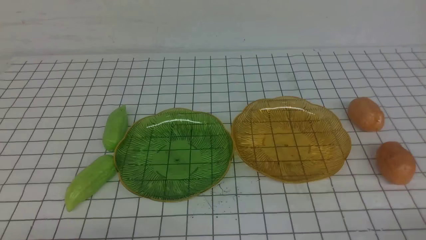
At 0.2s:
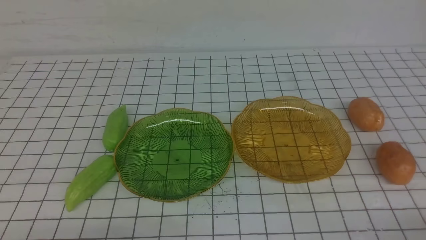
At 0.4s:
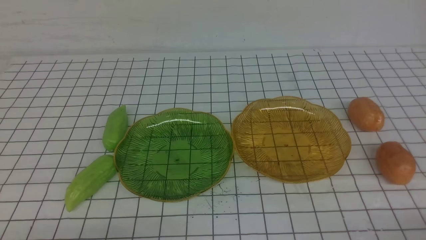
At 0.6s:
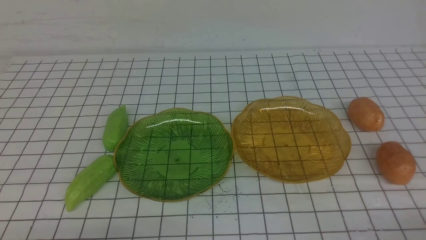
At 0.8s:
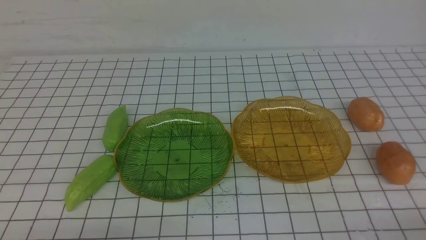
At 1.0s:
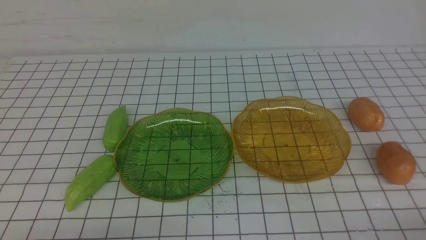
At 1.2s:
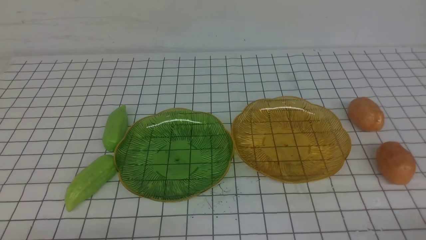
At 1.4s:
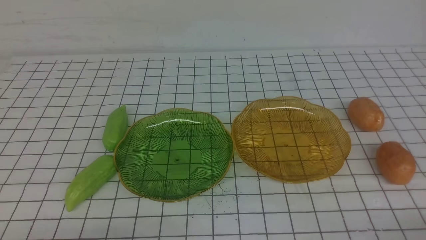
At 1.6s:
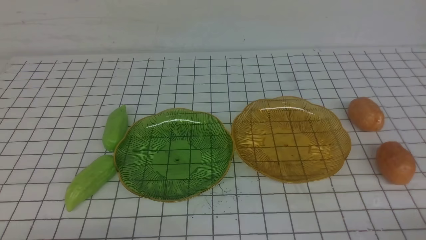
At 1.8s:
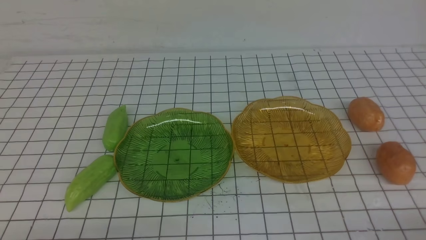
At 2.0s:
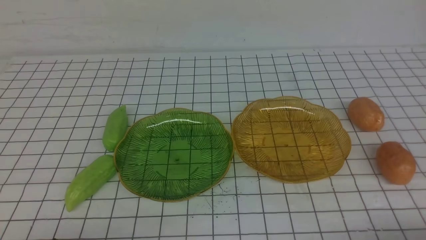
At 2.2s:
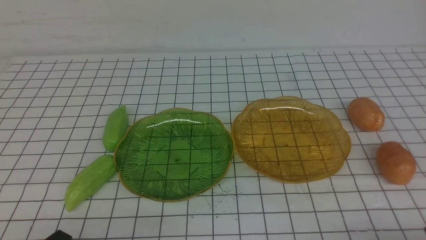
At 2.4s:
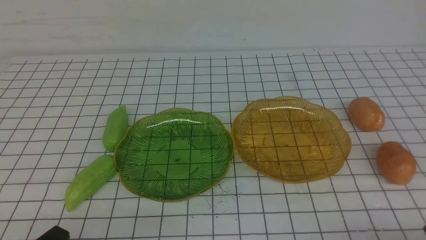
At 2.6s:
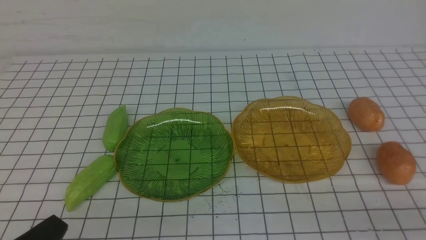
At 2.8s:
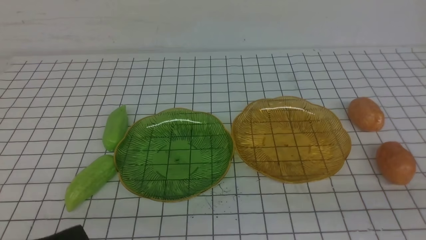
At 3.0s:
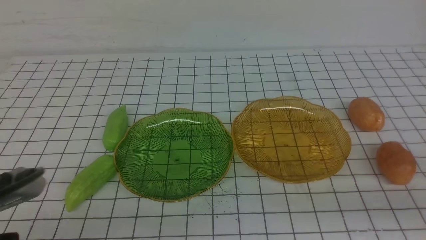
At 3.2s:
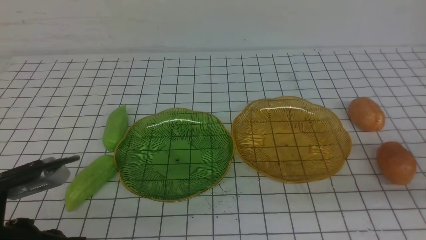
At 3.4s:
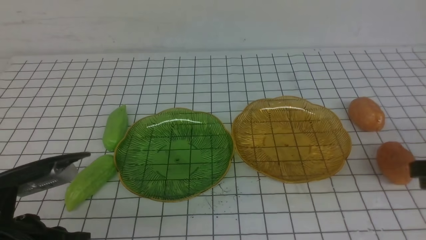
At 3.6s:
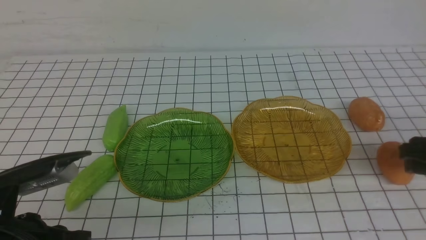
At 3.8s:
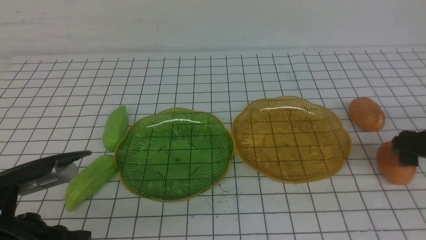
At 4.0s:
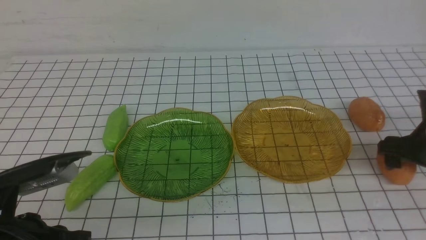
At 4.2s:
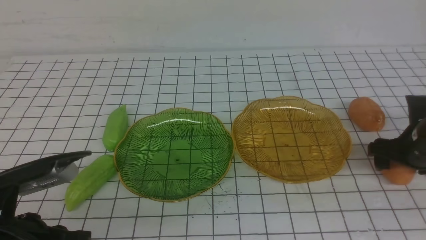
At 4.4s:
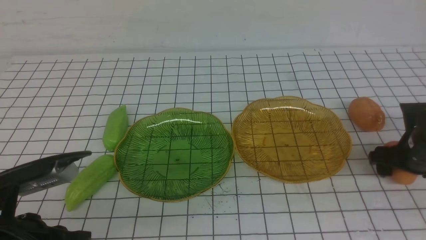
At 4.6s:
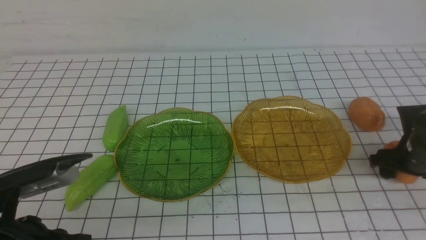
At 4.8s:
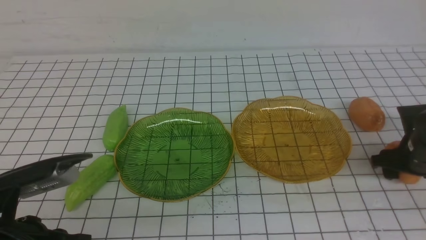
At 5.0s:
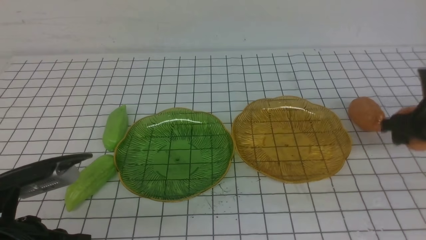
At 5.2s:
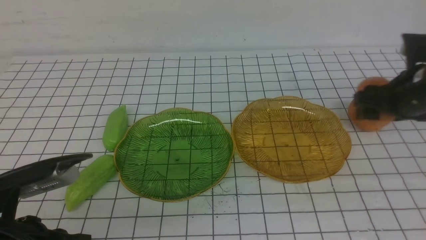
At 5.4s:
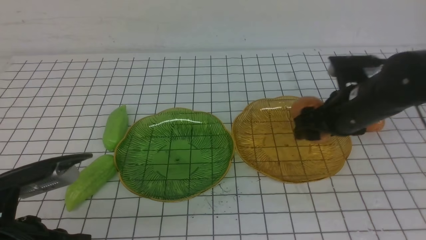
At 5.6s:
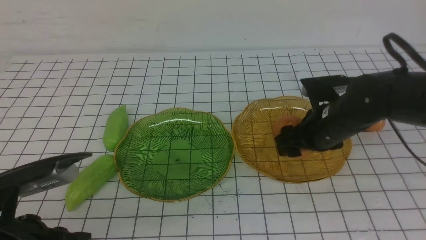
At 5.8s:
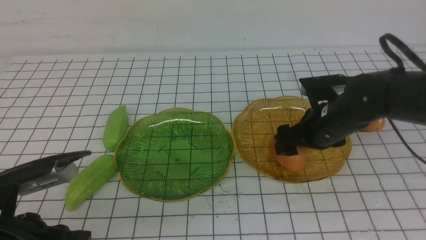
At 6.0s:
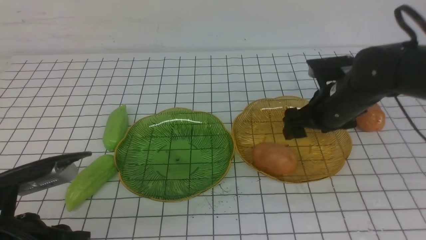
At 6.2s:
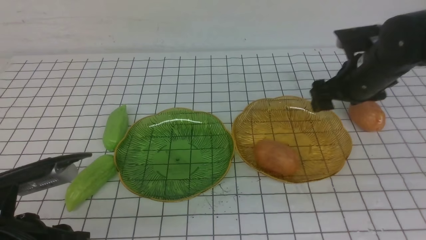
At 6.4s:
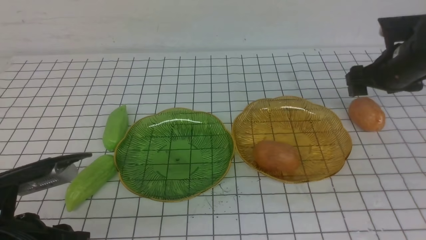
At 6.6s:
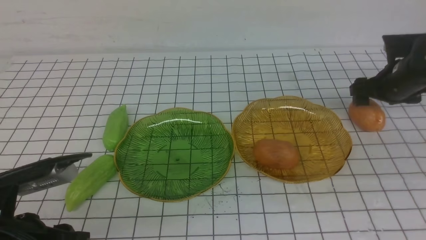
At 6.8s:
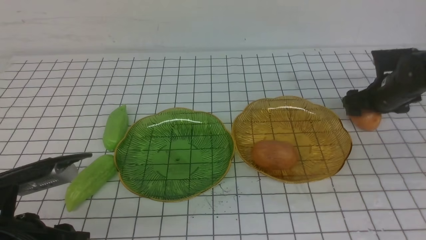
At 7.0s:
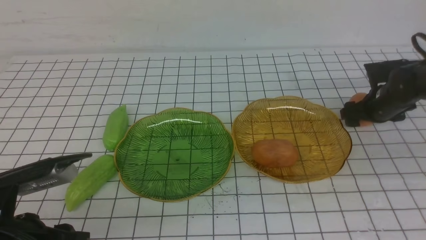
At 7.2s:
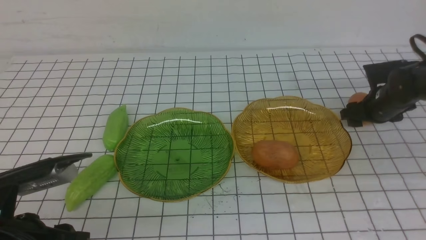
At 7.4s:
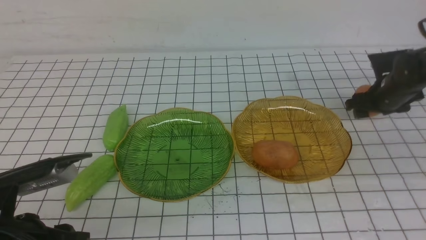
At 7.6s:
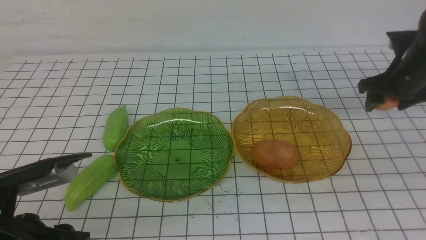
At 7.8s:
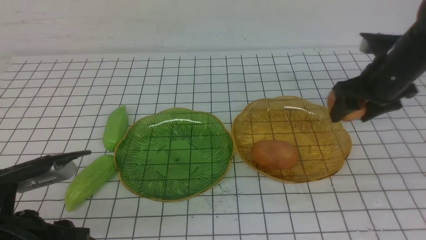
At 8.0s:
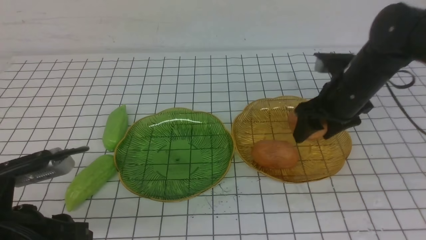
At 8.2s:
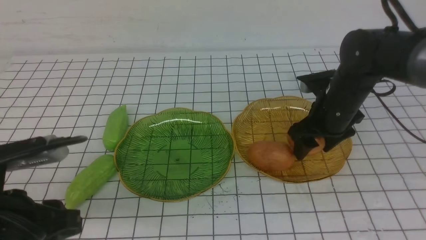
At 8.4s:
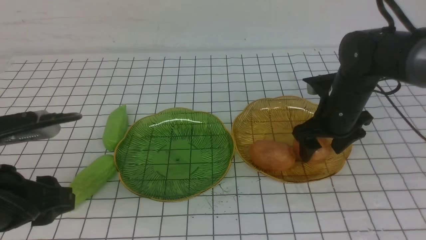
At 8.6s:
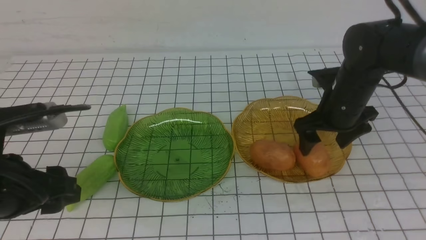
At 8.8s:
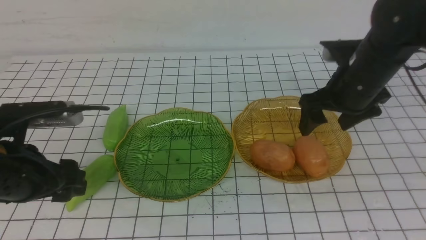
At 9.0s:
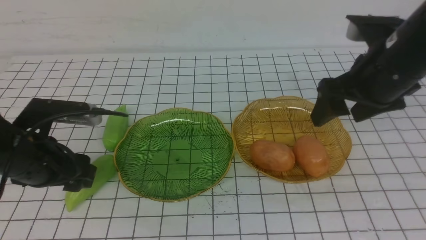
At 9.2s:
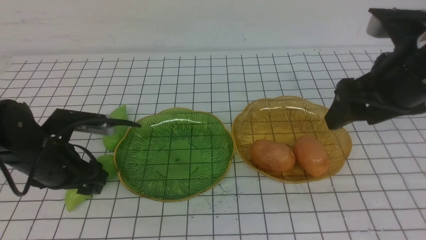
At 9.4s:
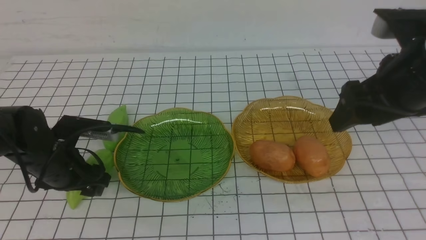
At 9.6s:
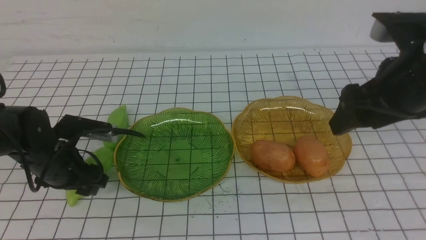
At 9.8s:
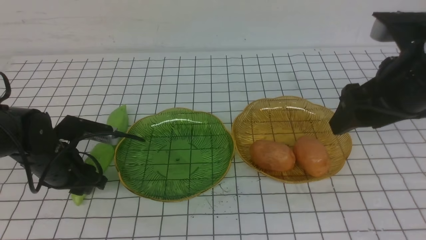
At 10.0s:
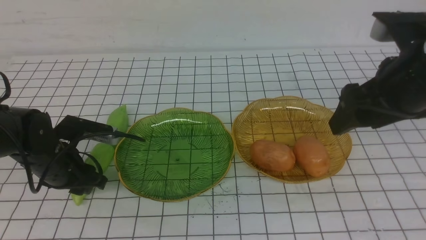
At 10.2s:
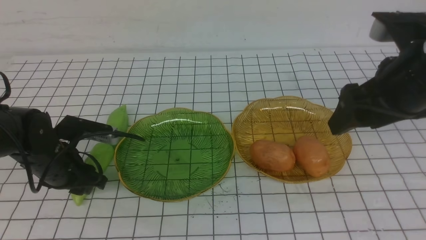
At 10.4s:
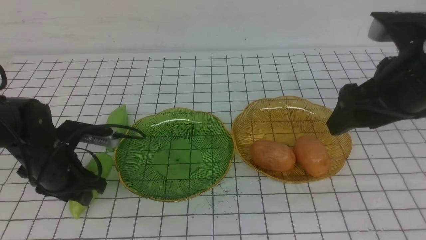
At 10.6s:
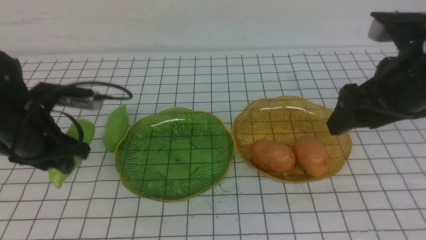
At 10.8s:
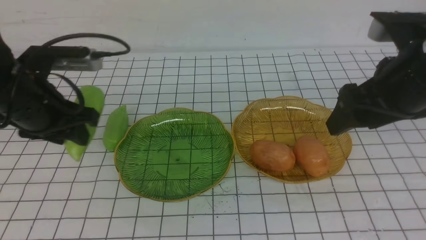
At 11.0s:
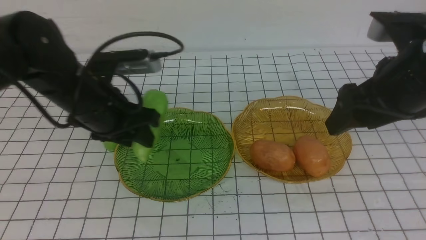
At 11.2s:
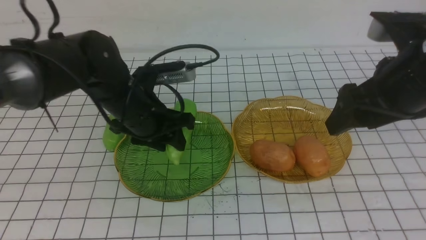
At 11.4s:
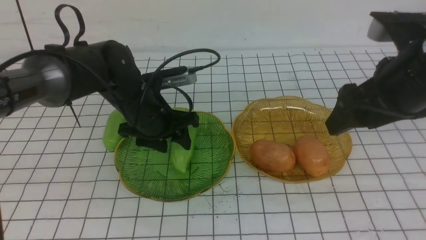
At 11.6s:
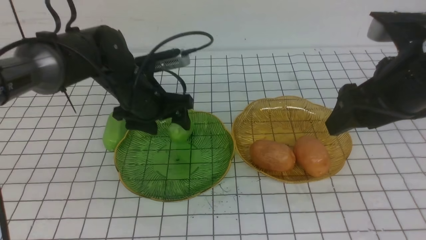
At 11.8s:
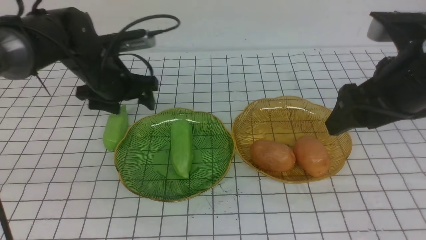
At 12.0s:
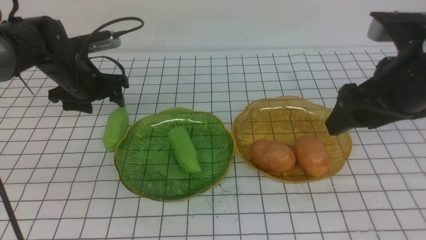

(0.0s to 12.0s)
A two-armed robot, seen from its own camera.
Step, 0.0s - 8.6s: Grab a potato with your right arm and put it on the right plate.
0.0s - 1.6s: Both grippers stay put.
1.6s - 3.0s: The left gripper heads upward, covering about 10 cm. Meanwhile the right gripper is displaced upward and forward by roughly 10 cm.
3.0s - 4.4s: The right gripper heads forward and downward, covering roughly 25 cm, and opens up.
4.4s - 6.0s: The right gripper shifts about 15 cm to the left and upward.
6.0s - 7.6s: The right gripper is displaced to the right by some 10 cm.
7.6s - 9.0s: The left gripper goes approximately 10 cm forward, and opens its fingers; the right gripper goes some 15 cm backward, upward and to the left.
9.0s - 10.4s: The left gripper closes its fingers.
10.4s - 12.0s: The left gripper moves forward, roughly 15 cm, and opens its fingers.

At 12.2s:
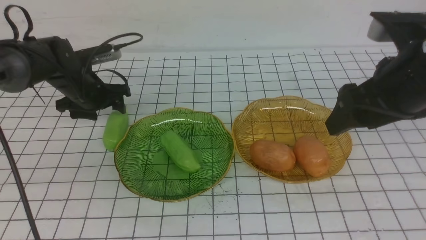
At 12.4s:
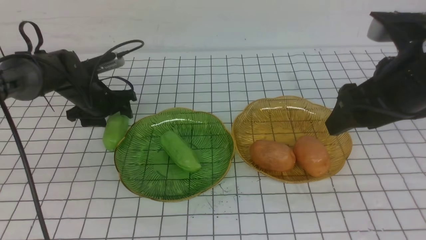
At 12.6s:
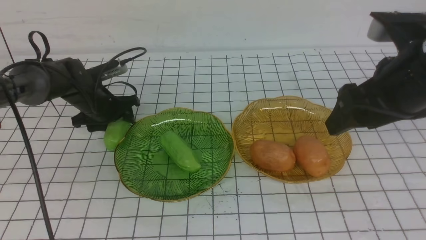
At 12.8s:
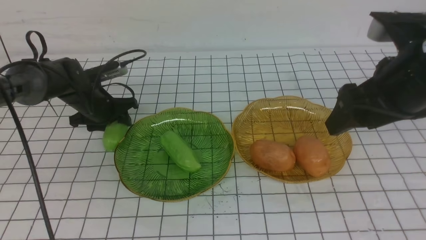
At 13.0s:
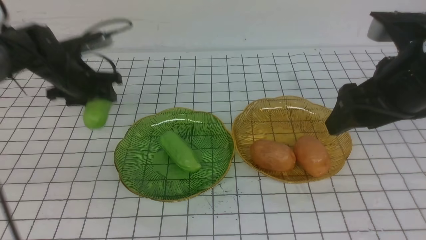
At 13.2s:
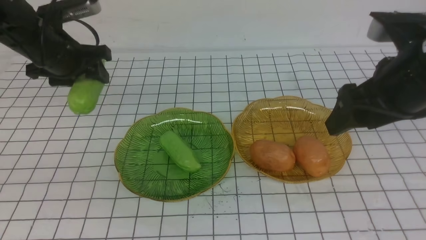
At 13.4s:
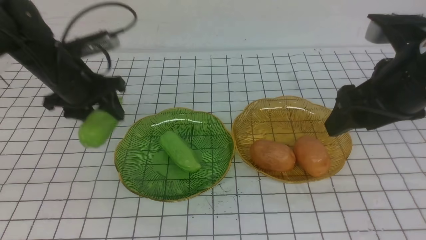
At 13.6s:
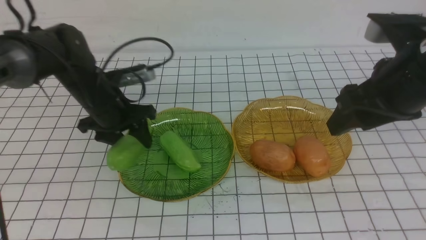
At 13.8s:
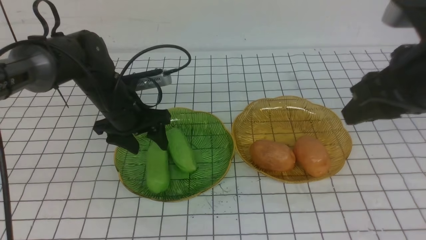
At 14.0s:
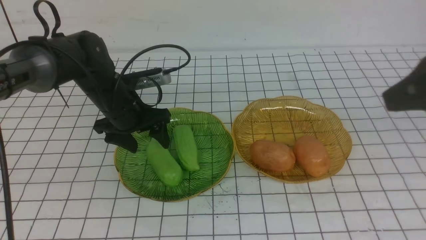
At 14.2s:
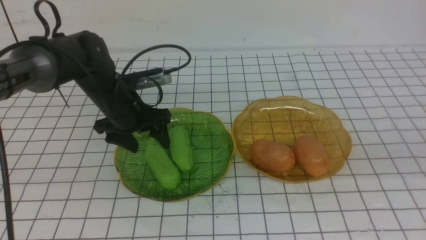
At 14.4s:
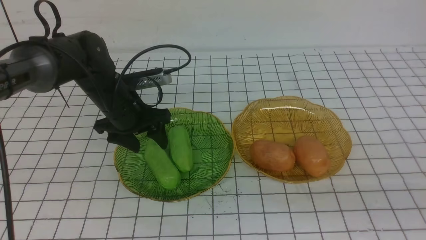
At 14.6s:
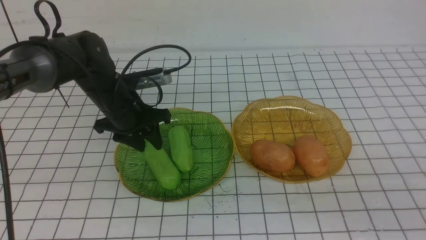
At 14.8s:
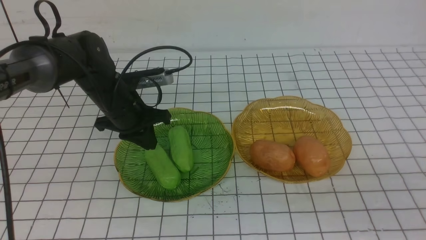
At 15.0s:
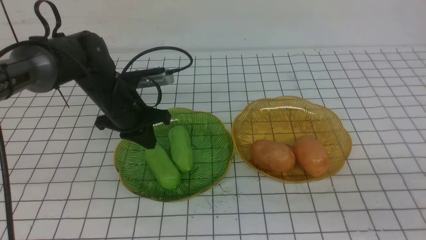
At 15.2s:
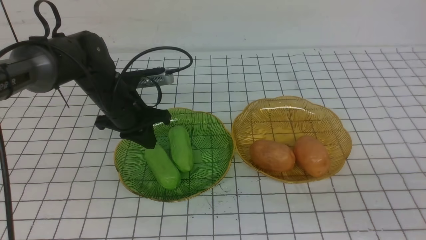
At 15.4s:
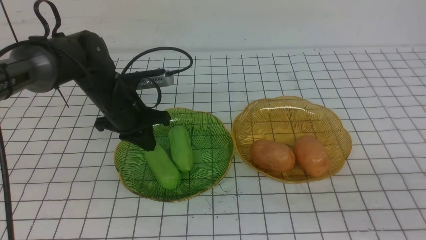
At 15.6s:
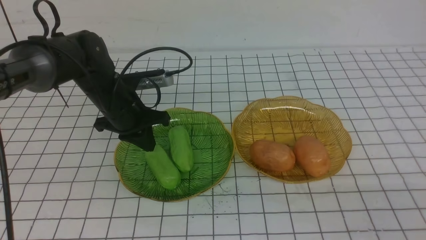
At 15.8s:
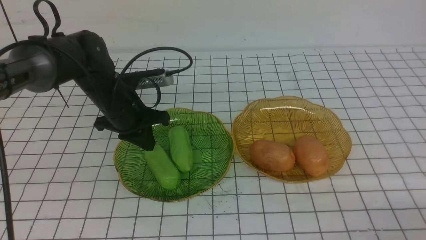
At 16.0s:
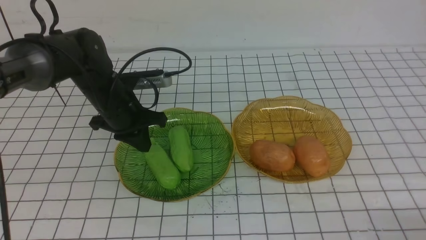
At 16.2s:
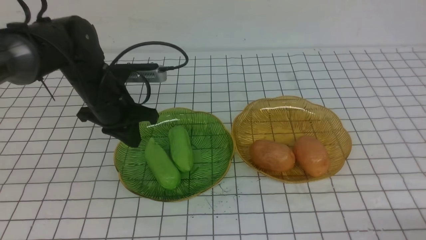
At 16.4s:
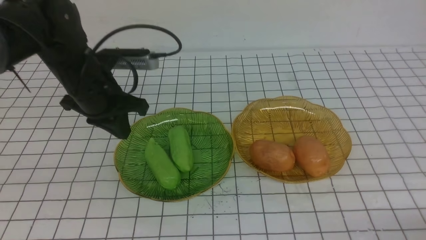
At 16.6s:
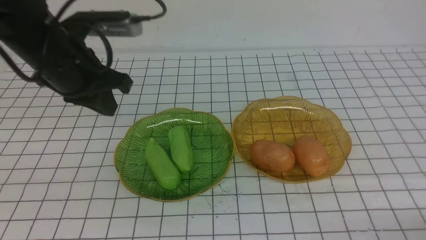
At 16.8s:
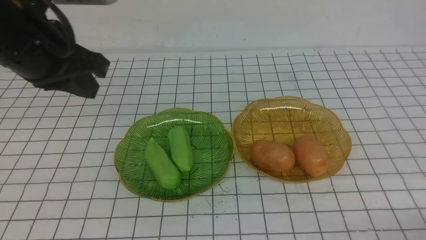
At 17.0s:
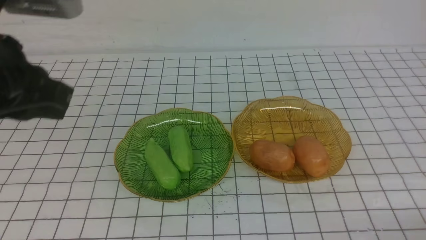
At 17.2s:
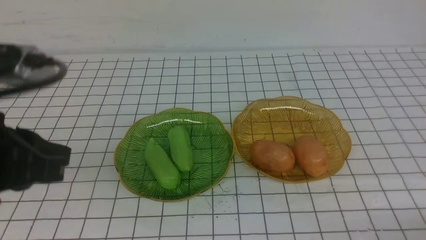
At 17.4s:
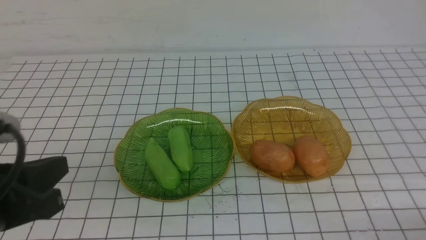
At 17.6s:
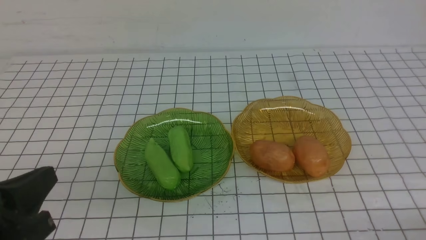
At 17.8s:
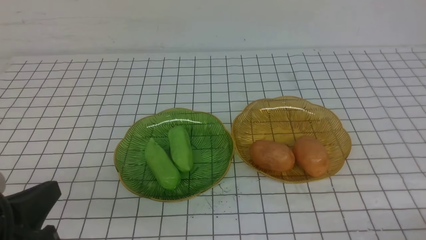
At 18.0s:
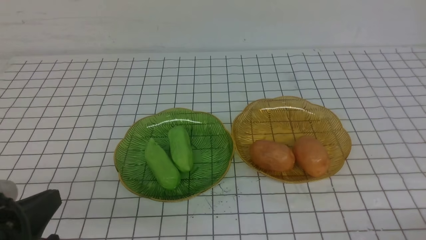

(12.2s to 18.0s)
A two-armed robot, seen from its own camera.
12.2s - 13.6s: The left gripper swings up and down, approximately 10 cm each way, with 2 reversals.
13.6s - 15.0s: The left gripper closes its fingers. Meanwhile the right gripper moves backward and downward, approximately 20 cm, and closes up.
15.0s - 16.6s: The left gripper heads upward and backward, covering approximately 15 cm; the right gripper heads downward, covering some 10 cm.
16.6s - 18.0s: The left gripper heads backward and downward, covering approximately 25 cm.
